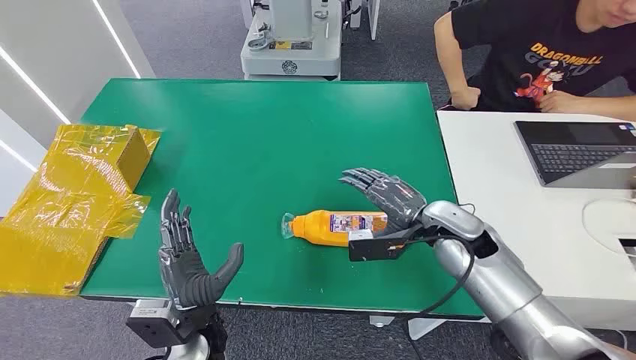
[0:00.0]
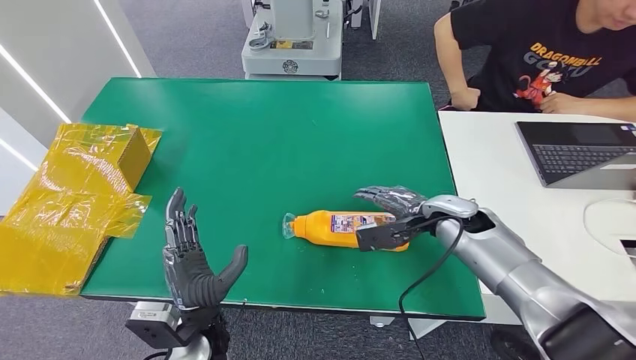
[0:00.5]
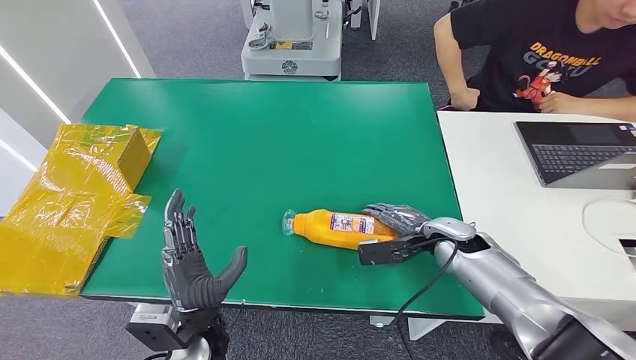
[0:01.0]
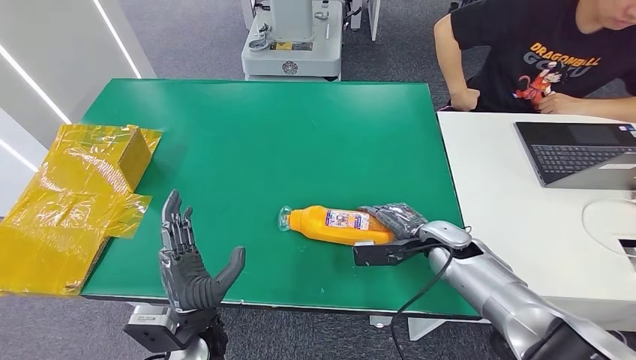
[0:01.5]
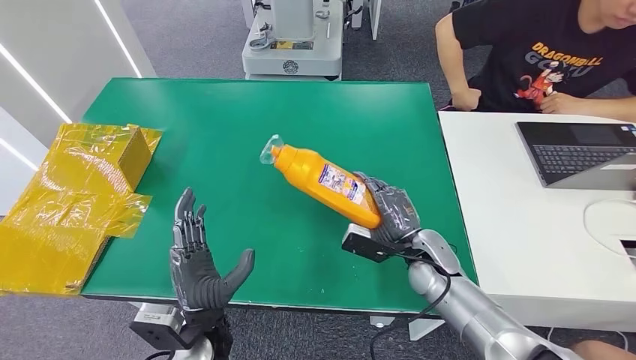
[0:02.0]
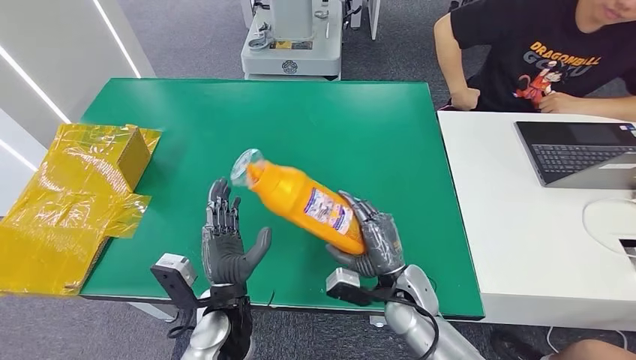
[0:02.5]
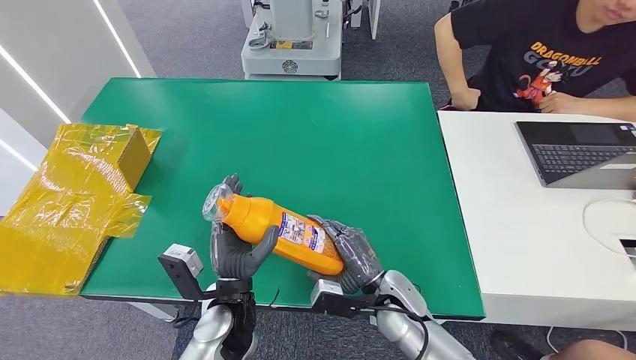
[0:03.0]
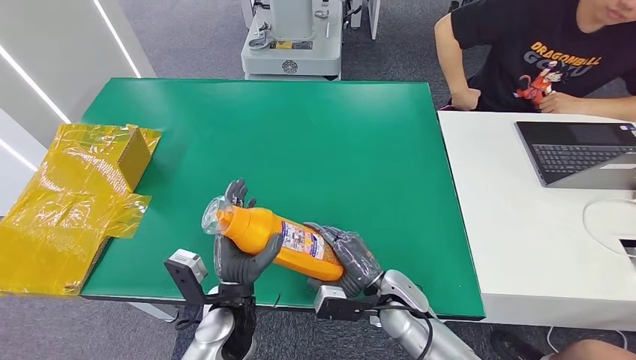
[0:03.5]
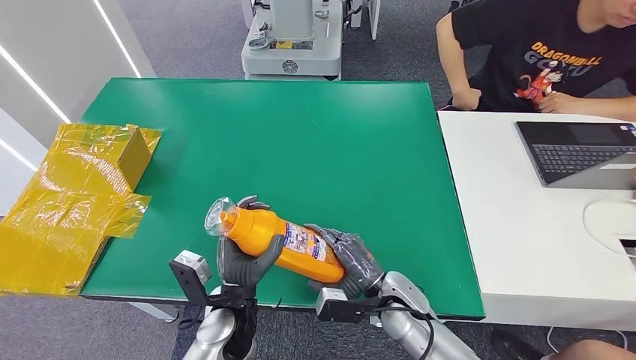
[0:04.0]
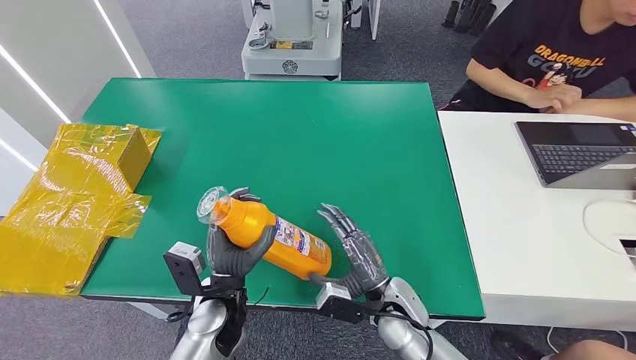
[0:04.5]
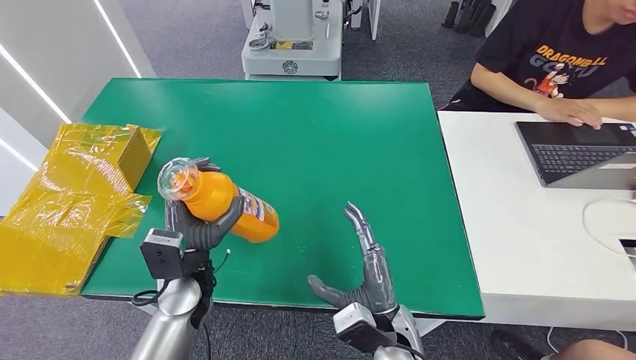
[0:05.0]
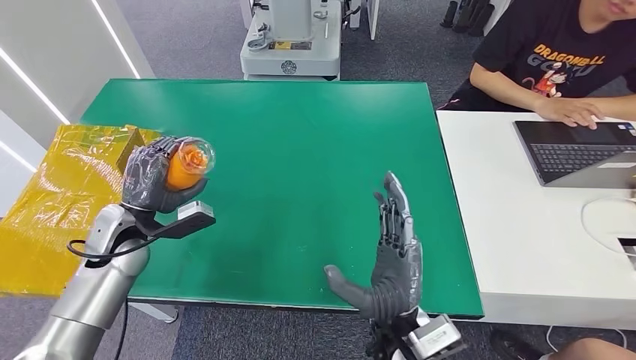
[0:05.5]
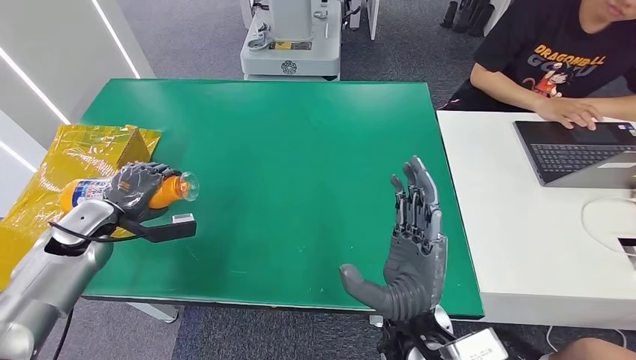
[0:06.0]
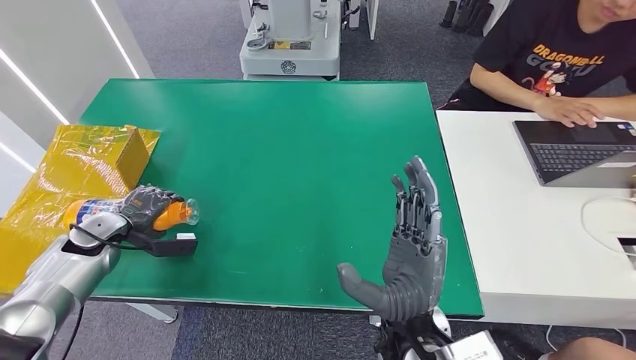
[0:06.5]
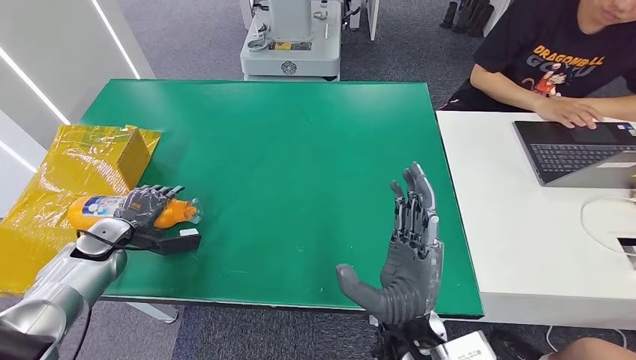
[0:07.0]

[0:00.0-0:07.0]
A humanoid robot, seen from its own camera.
Step, 0:00.0 to 0:02.5: Pick up the bottle from the table.
Step, 0:03.0 to 0:07.0: Turn the bottle to the front side.
0:02.0 to 0:03.5: The left hand shifts by approximately 5 cm, while the right hand heads to the left and backward, covering some 10 cm.
0:03.5 to 0:05.0: The left hand shifts approximately 5 cm to the left, while the right hand travels backward by some 5 cm.
0:05.0 to 0:07.0: The right hand heads upward, covering roughly 10 cm; the left hand moves to the left, some 25 cm.
